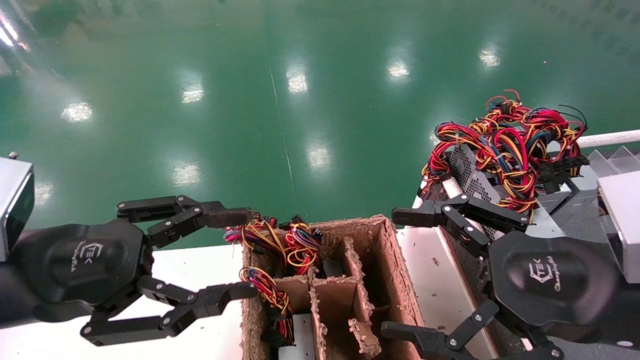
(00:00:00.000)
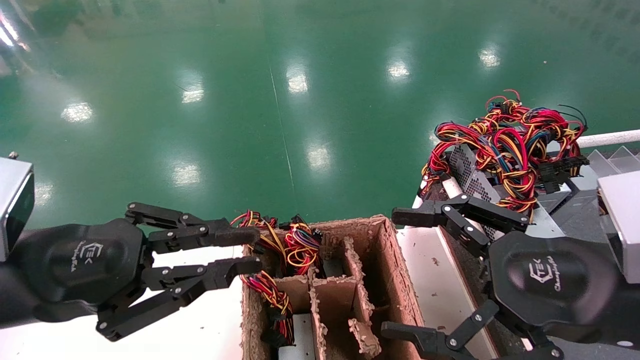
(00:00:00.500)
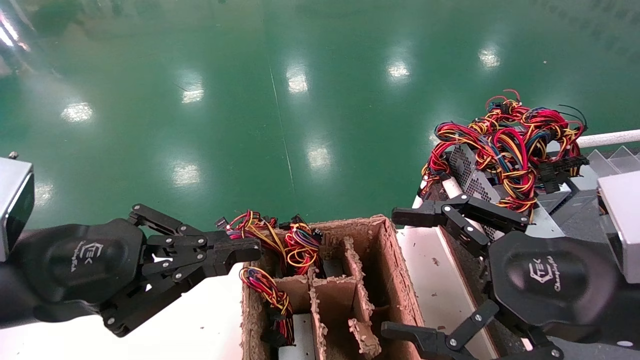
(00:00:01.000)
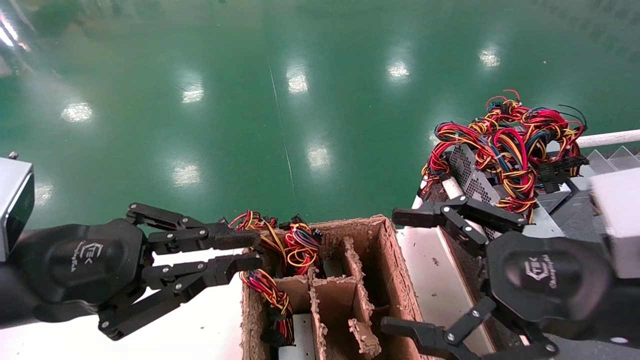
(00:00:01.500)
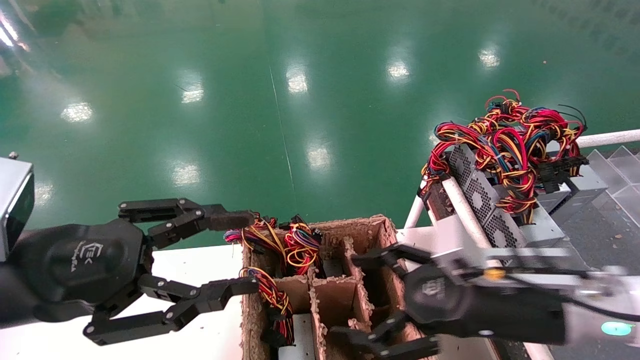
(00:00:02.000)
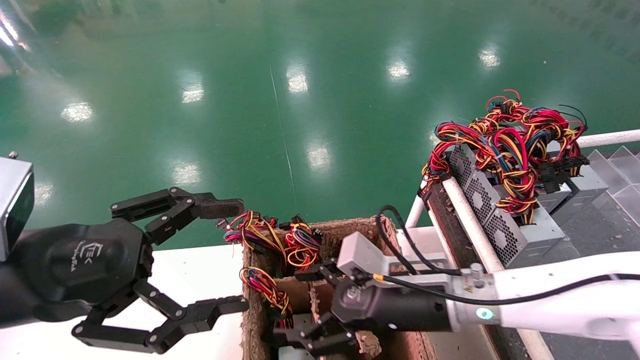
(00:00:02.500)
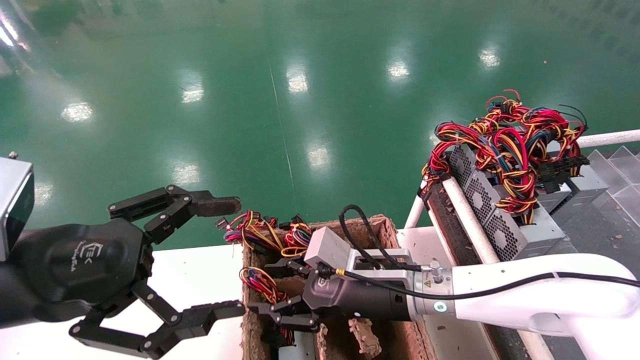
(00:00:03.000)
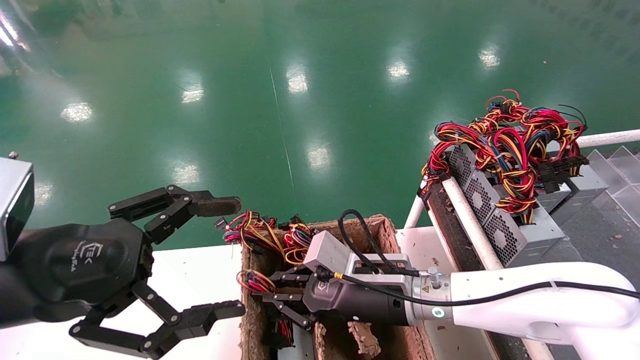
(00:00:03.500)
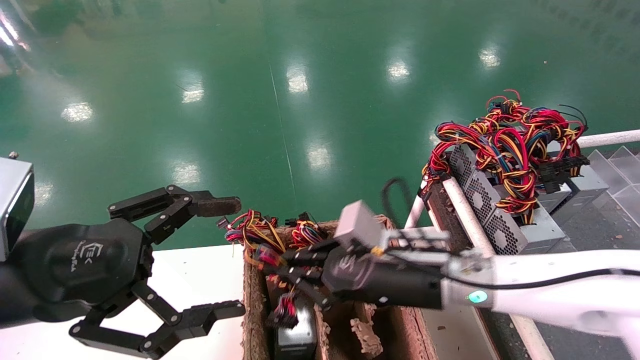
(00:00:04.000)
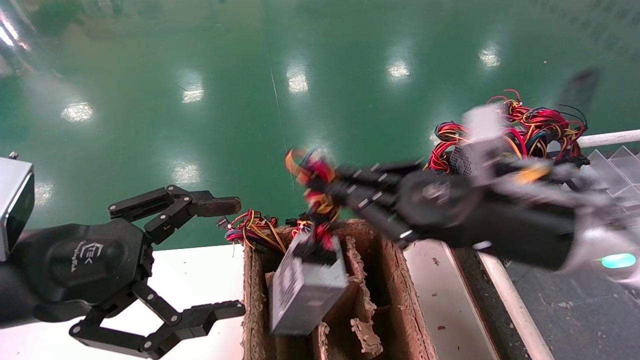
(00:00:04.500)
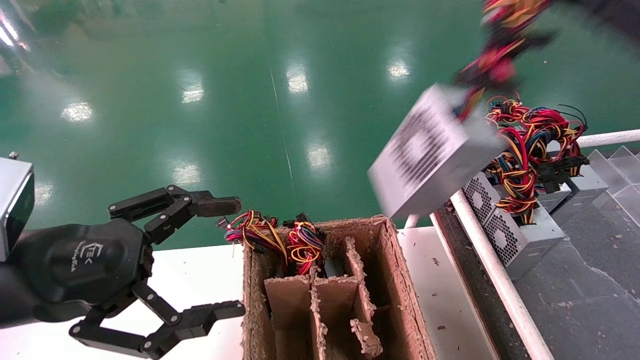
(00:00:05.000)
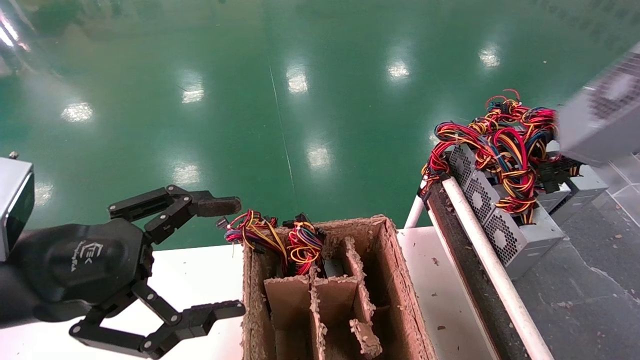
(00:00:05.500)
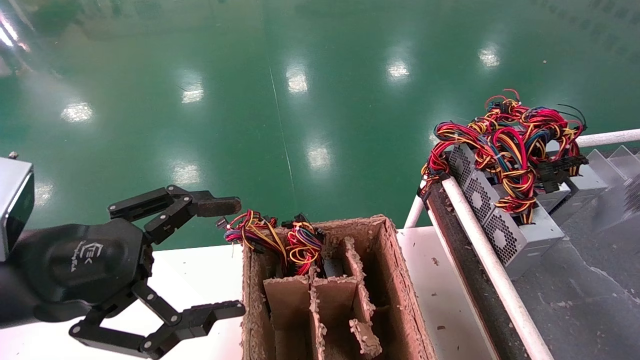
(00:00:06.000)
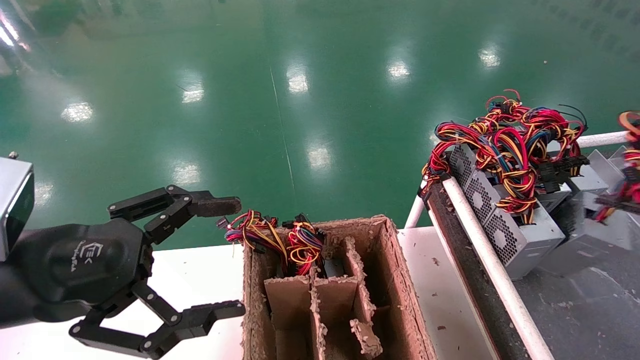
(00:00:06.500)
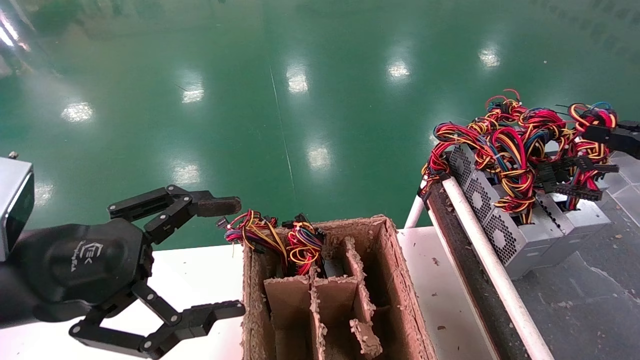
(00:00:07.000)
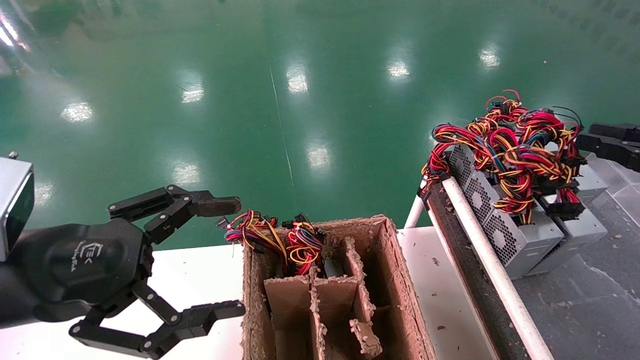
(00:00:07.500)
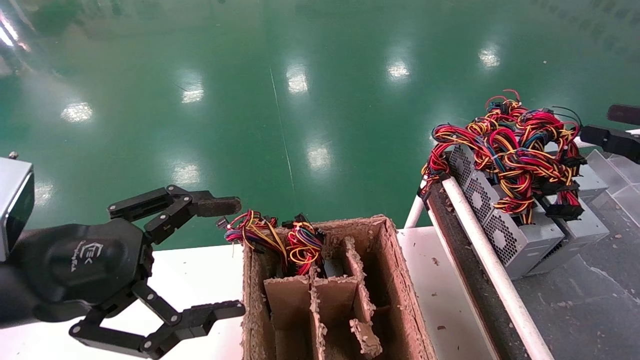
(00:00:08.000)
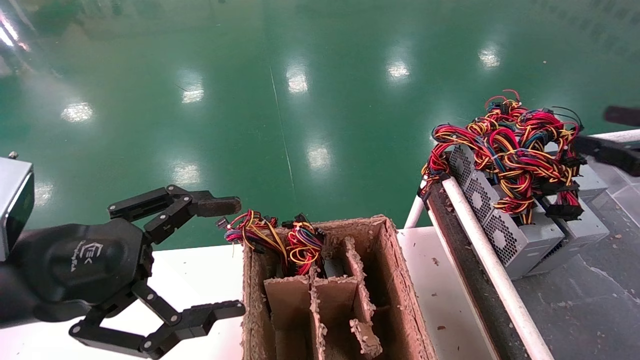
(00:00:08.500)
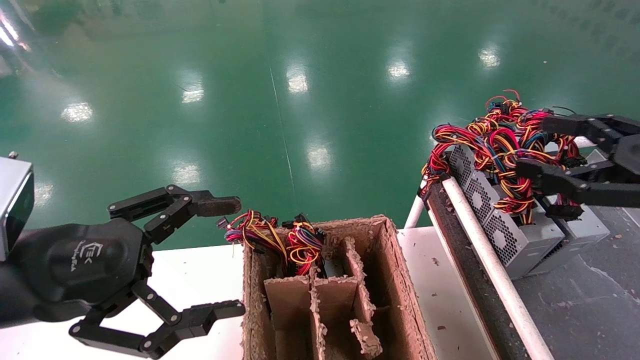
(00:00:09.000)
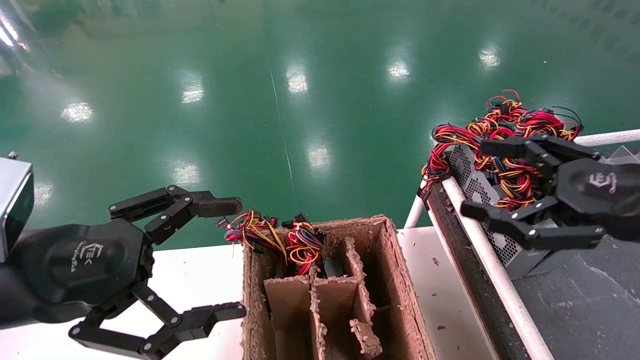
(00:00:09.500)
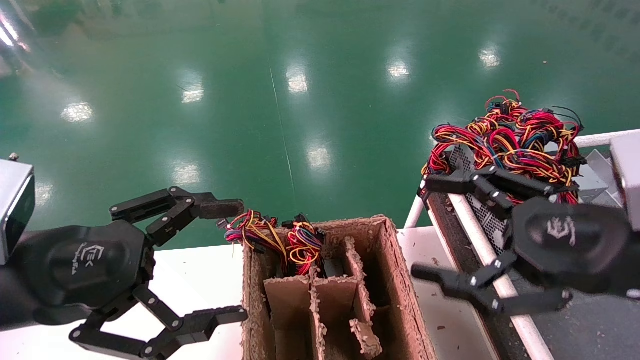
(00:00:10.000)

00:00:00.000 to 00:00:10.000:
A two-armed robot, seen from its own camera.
Step, 00:00:02.000 to 00:00:04.000: Grab and lift the power supply from the large box.
Step, 00:00:04.500 to 00:00:08.500: Place the power supply on the operating table.
00:00:00.000 to 00:00:02.000: The left gripper closes, then opens again, while the right gripper shifts about 10 cm forward, downward and to the left.
00:00:02.000 to 00:00:04.000: The left gripper opens up; the right gripper travels to the left and forward by about 10 cm, and closes up.
00:00:04.000 to 00:00:06.000: The right gripper moves to the right, upward and backward, roughly 50 cm.
00:00:06.000 to 00:00:08.000: The right gripper travels forward and to the left by about 10 cm, and opens its fingers.
00:00:08.000 to 00:00:10.000: The right gripper is displaced to the left by roughly 20 cm, and opens its fingers.
